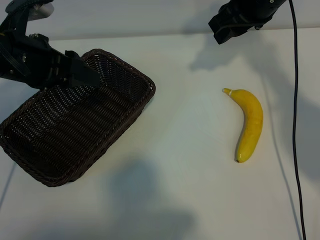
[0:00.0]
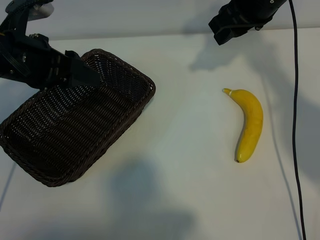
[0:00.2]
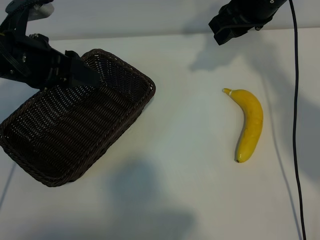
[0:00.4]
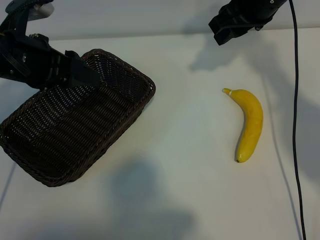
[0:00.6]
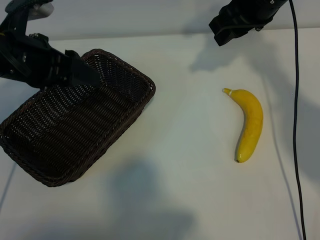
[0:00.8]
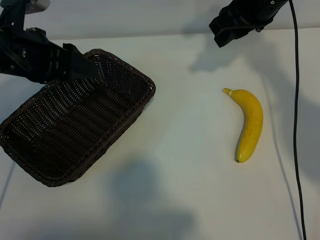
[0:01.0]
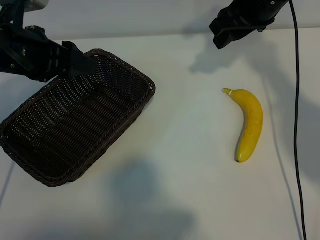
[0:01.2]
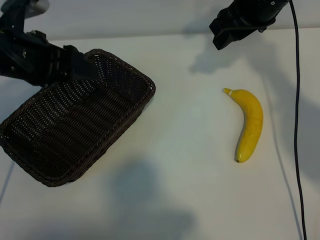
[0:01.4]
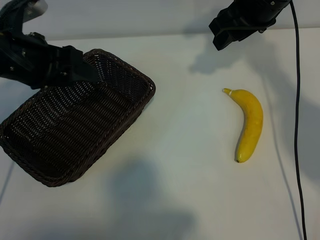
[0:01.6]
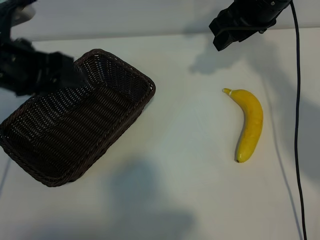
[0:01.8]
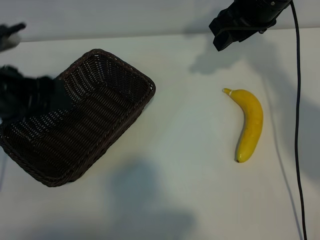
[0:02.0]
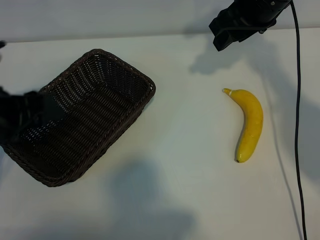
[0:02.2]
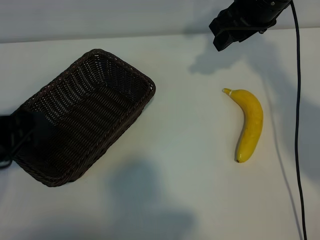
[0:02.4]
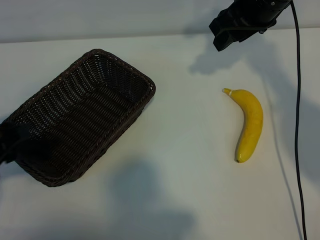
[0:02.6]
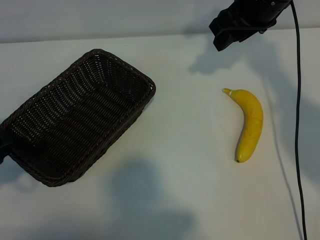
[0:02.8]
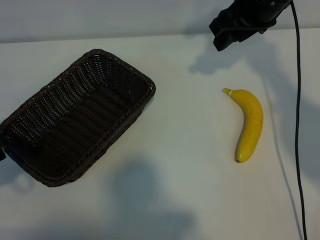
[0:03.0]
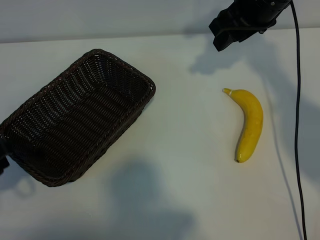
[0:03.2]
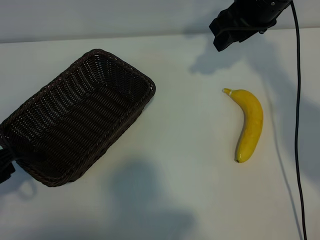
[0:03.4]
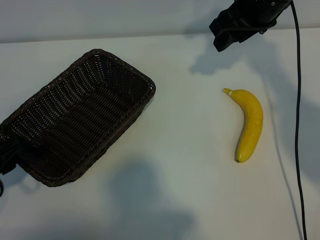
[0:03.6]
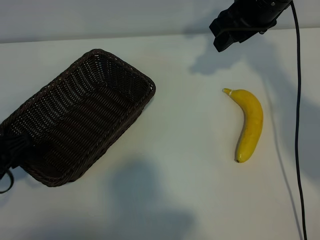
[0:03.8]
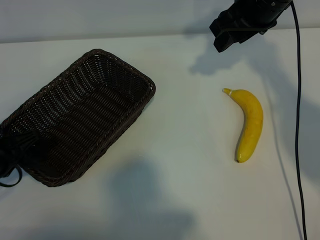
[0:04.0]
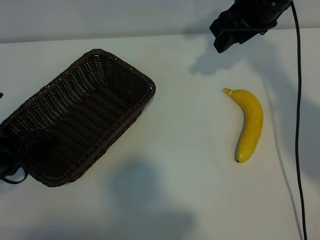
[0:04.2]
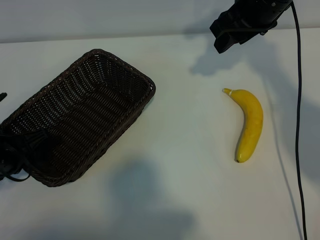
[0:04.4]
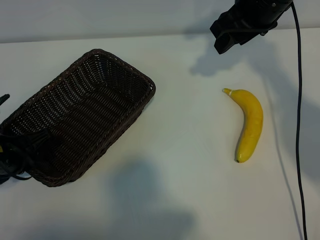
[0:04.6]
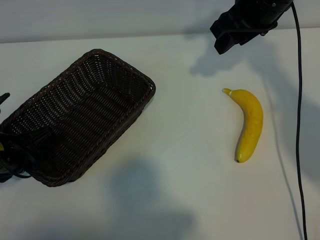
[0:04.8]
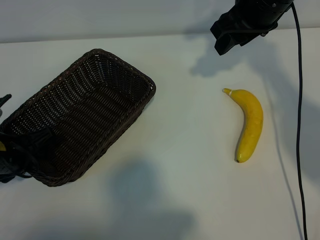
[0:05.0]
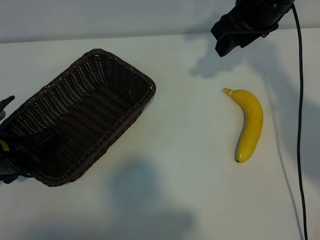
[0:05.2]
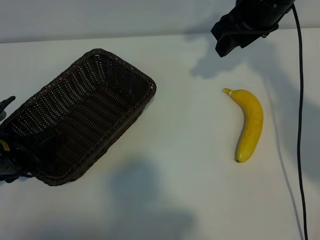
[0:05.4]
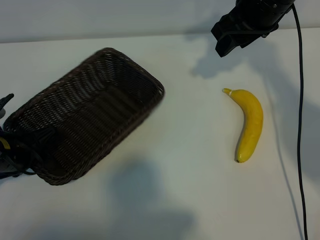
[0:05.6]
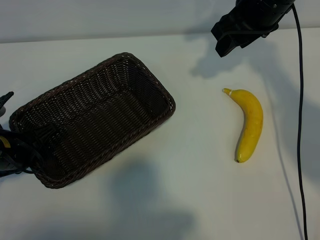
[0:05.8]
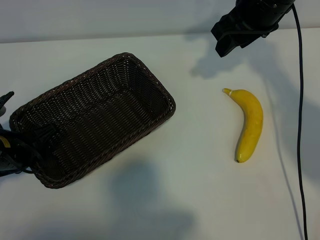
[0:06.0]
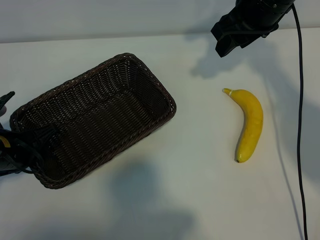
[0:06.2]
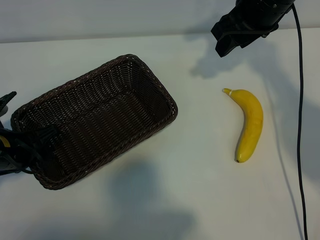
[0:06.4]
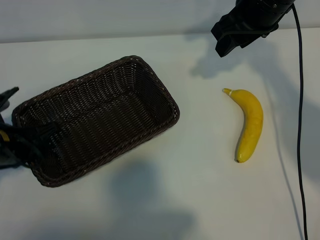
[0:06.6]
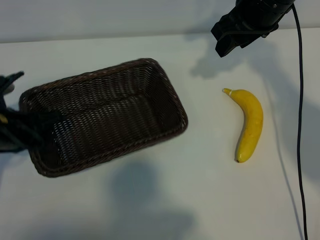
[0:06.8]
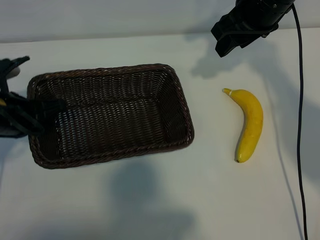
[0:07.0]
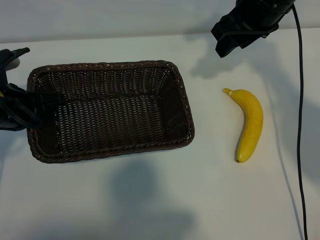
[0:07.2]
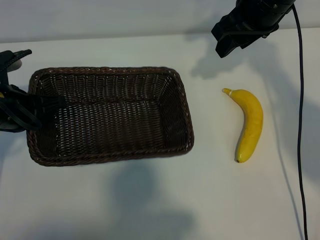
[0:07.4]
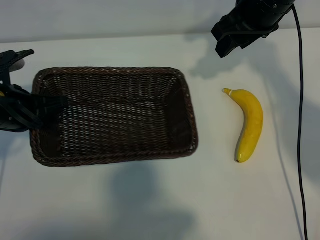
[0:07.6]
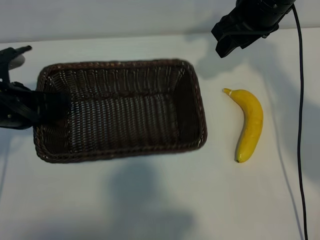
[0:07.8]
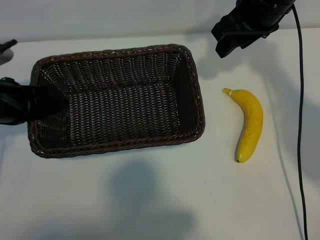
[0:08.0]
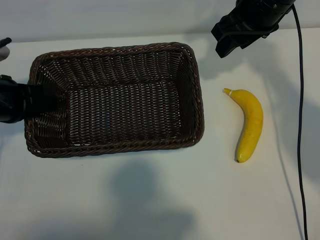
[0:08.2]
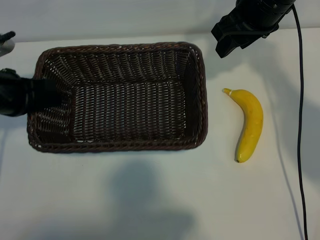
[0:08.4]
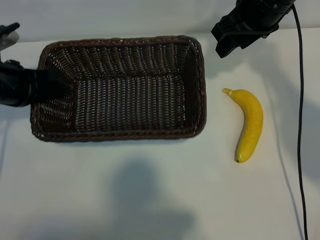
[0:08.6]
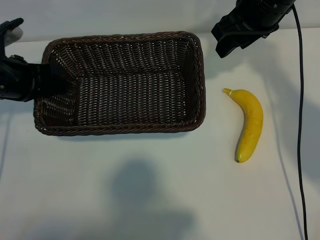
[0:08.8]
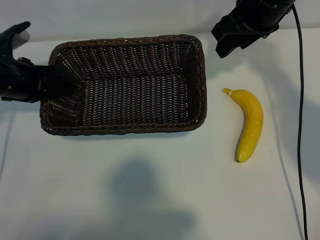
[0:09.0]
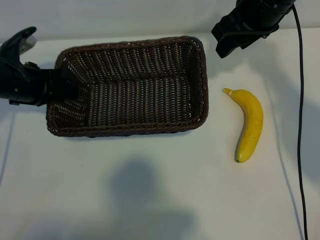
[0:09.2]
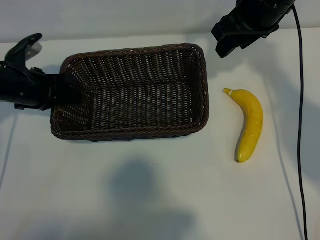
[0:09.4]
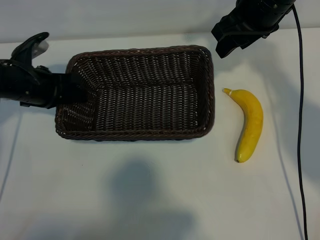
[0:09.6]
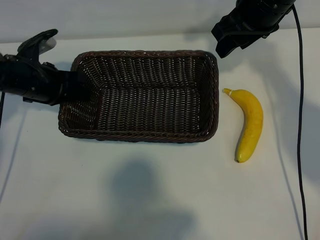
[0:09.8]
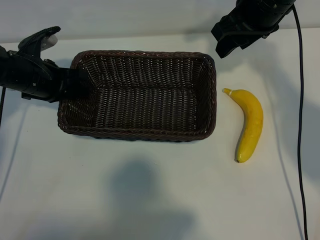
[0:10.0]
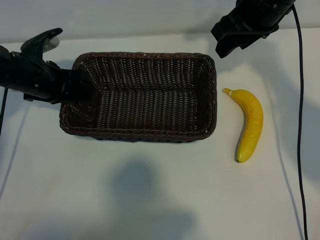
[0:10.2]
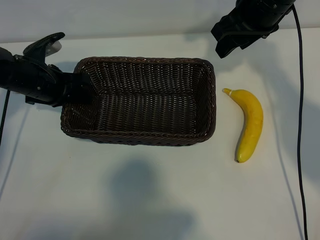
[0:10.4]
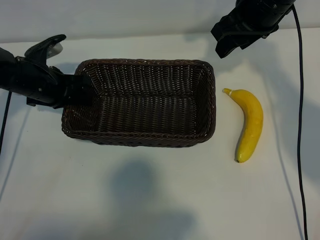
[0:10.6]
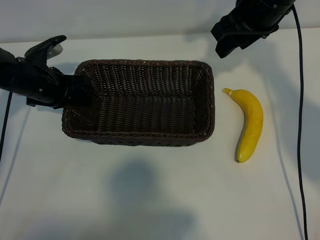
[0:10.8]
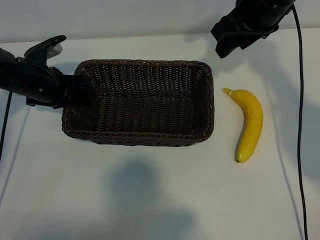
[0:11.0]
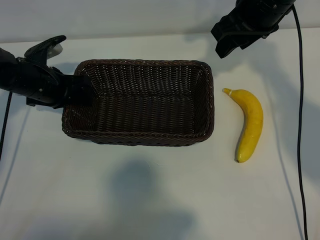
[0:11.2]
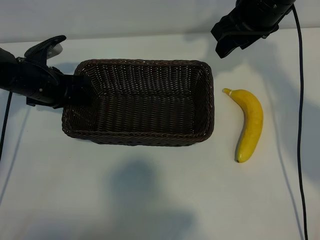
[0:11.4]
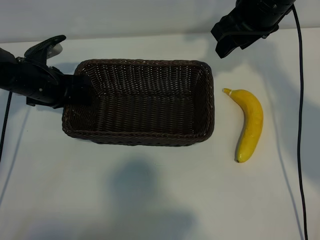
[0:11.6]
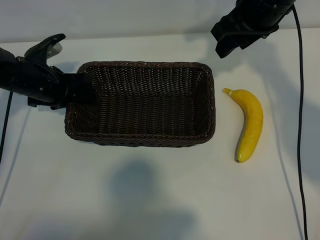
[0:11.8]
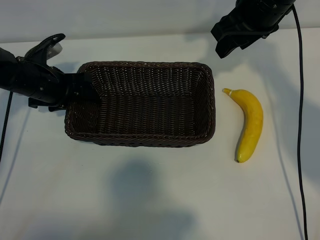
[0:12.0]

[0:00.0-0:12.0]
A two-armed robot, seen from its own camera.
Task of the whole recording: pick up the banana and put it into the basket.
Step, 0:00.0 to 0:05.8: Grasp the basket with the left gripper.

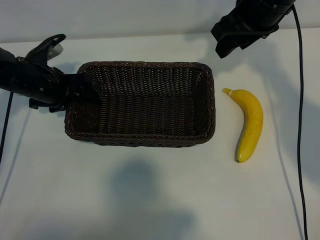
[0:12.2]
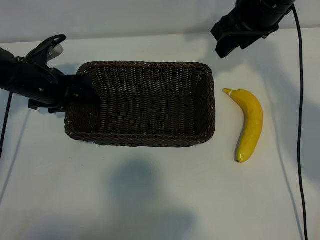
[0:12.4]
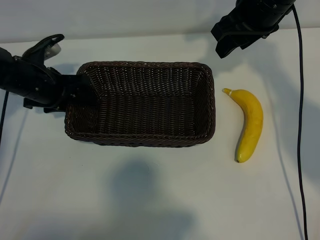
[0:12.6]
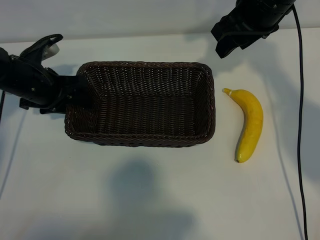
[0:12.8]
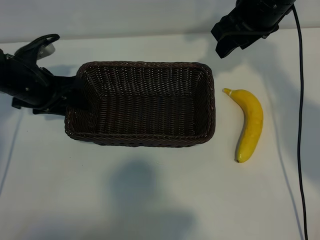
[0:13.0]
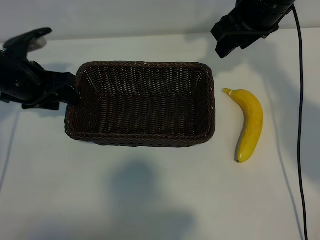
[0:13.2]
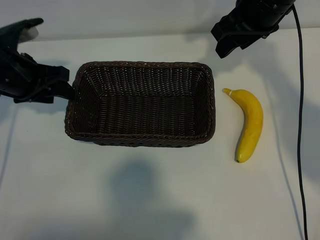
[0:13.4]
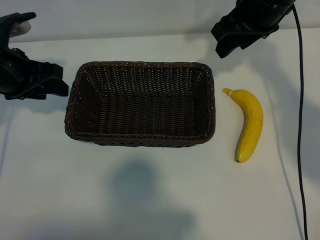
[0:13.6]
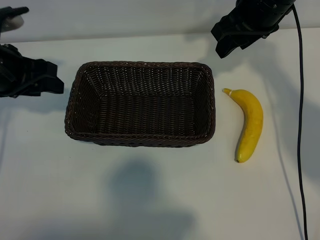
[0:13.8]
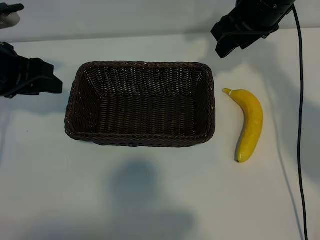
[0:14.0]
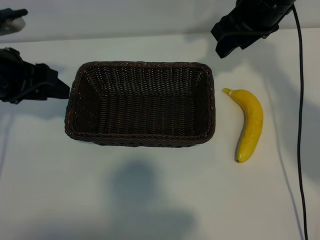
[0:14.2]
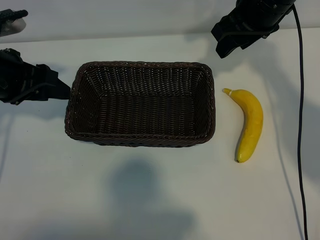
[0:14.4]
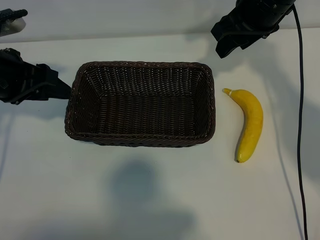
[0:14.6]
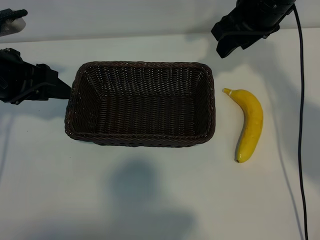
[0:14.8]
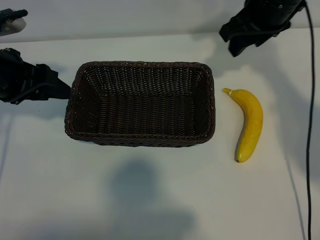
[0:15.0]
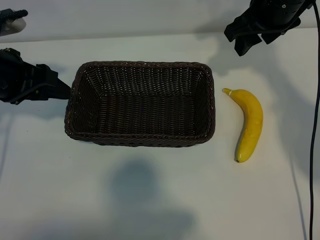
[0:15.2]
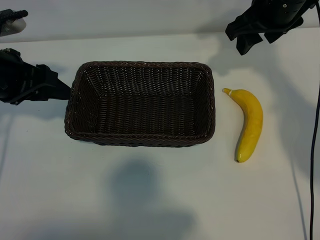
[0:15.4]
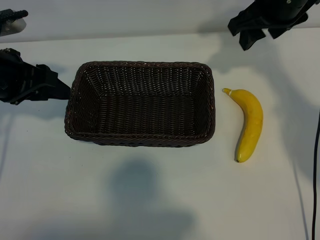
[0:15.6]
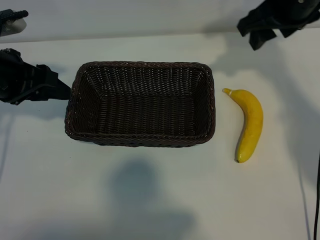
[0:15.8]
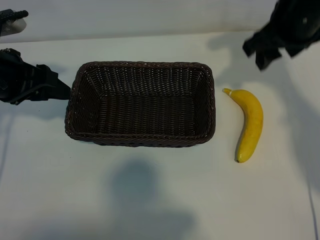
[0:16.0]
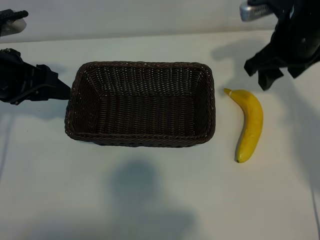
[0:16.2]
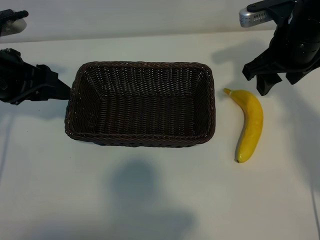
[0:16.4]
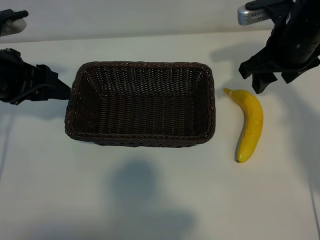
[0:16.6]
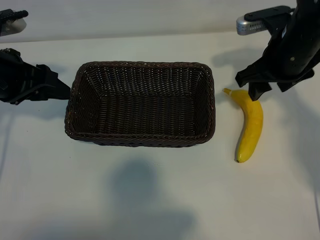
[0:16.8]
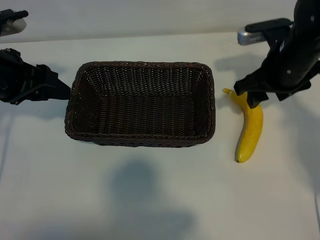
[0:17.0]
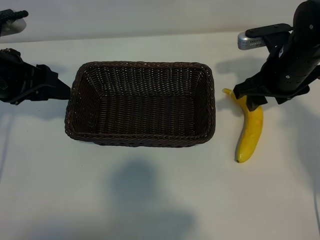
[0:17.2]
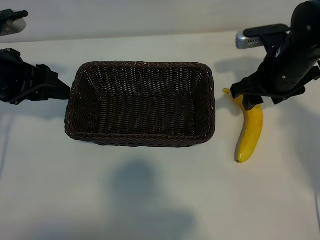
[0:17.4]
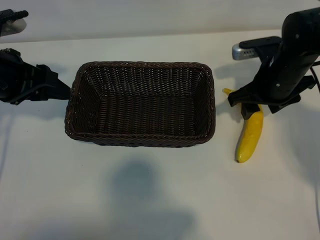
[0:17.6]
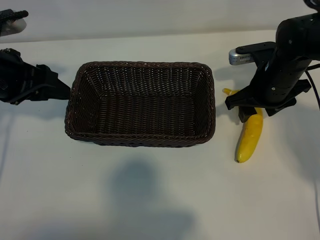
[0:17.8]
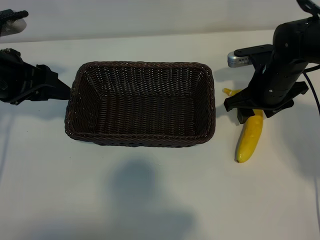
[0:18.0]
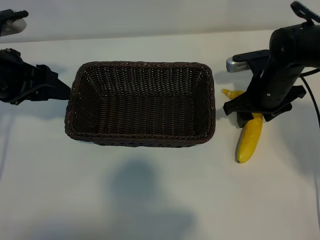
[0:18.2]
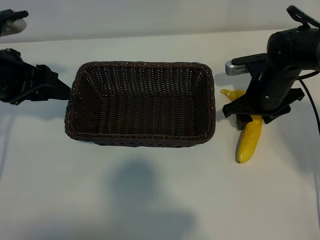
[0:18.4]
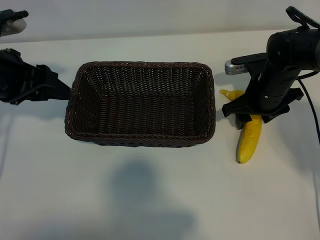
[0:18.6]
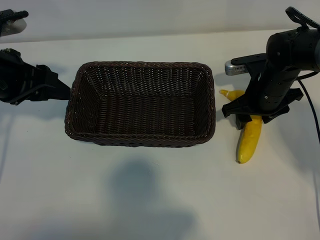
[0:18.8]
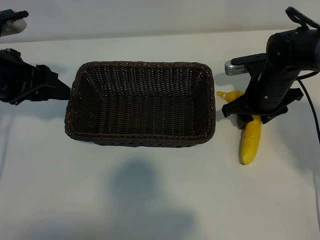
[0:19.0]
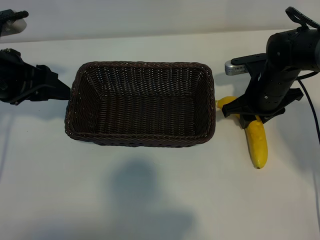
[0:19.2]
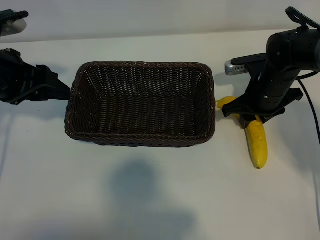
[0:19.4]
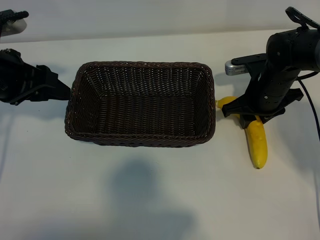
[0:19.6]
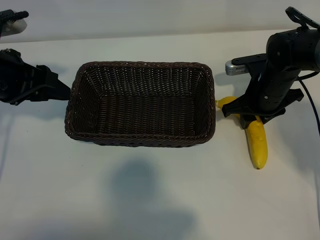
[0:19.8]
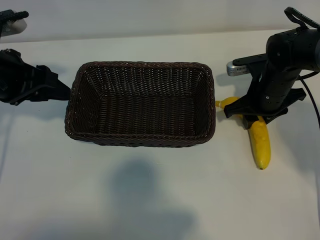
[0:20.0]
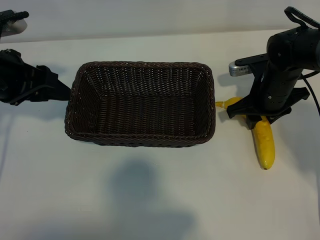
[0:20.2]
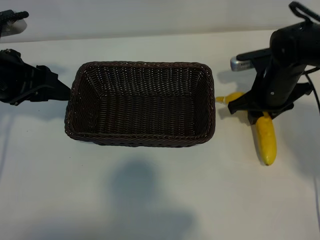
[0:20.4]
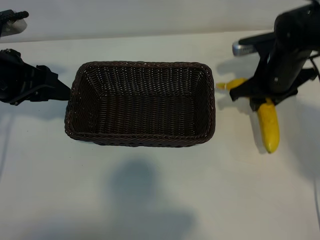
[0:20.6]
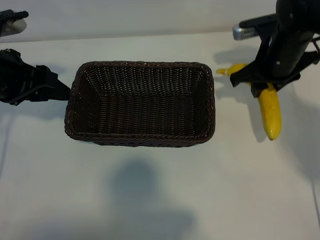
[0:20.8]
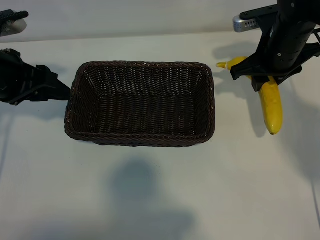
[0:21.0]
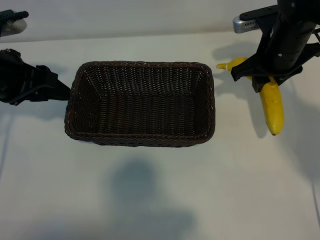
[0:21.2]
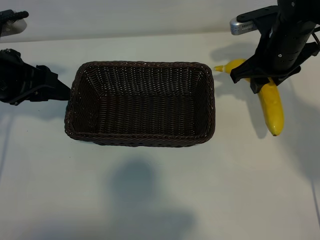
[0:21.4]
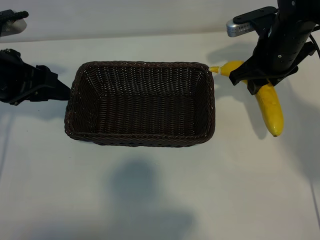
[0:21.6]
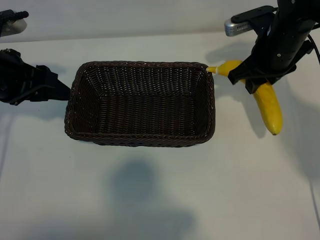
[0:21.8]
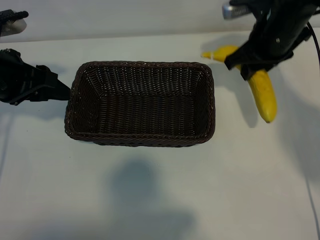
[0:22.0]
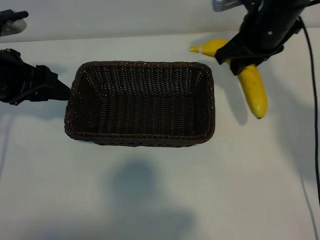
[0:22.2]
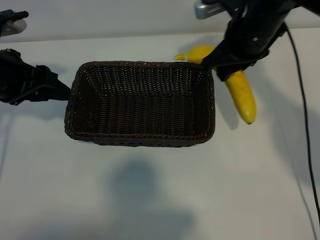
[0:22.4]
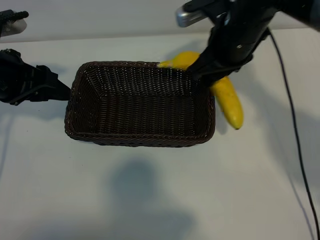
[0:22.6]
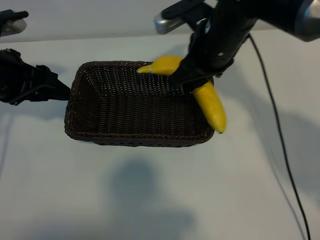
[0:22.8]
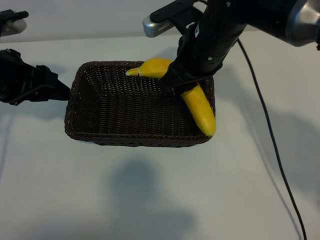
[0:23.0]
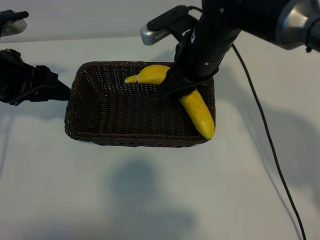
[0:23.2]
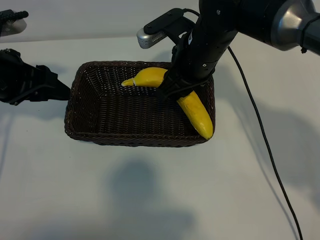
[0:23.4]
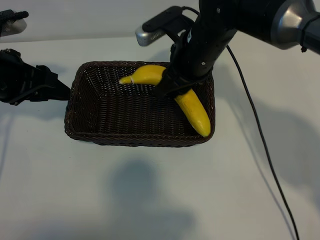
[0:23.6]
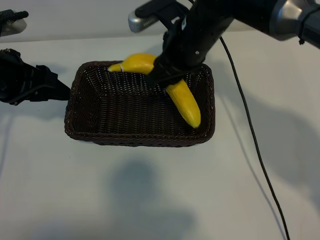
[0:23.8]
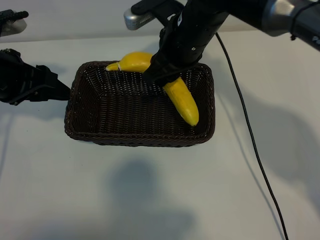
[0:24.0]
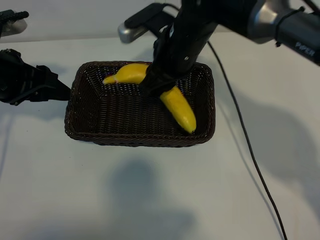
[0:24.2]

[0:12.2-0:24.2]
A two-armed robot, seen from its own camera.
Task of the whole recording: pick up the banana and put it into the basket.
Step, 0:12.8 to 0:19.6: Grasp the banana with right gripper.
